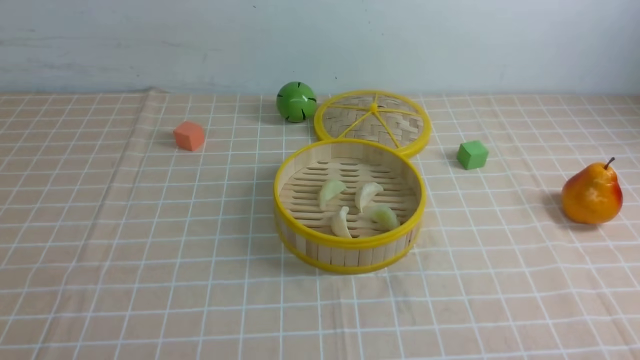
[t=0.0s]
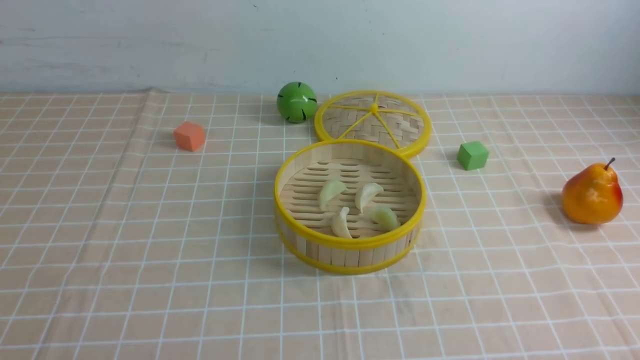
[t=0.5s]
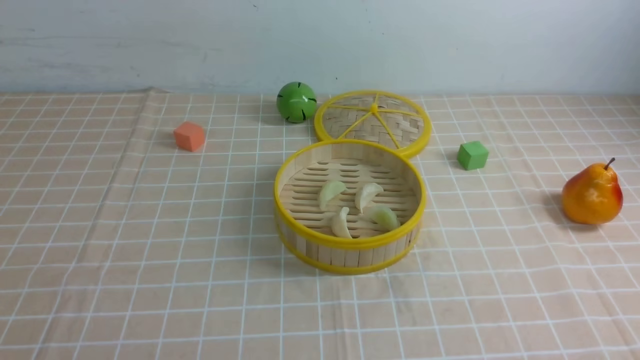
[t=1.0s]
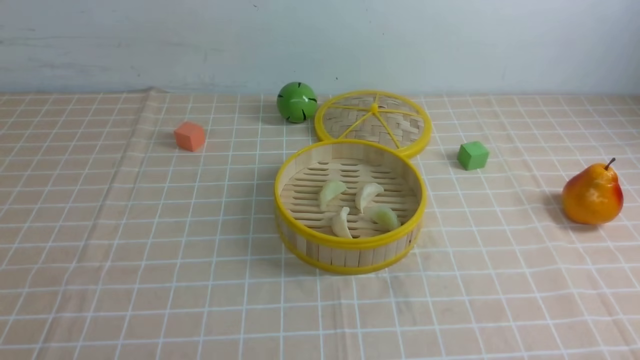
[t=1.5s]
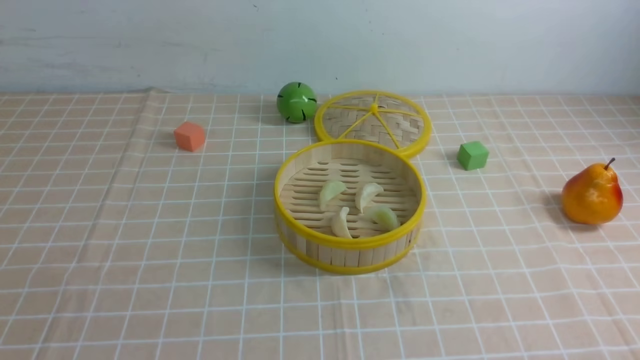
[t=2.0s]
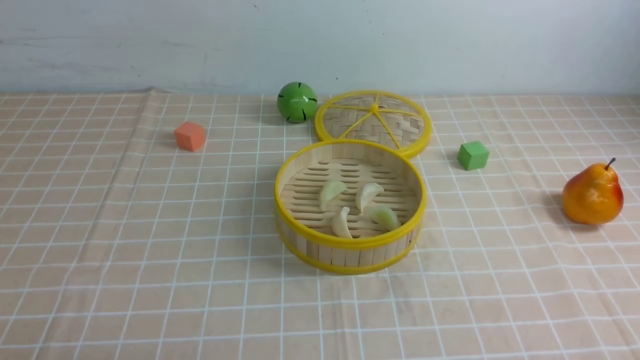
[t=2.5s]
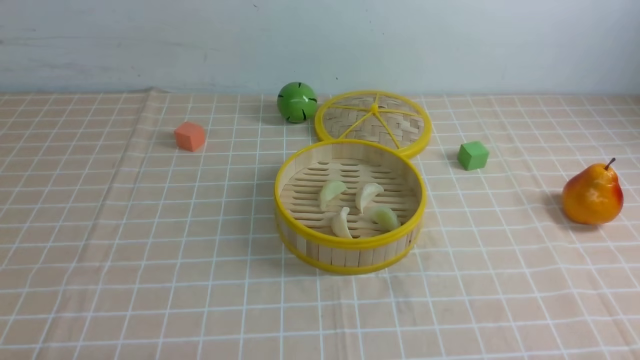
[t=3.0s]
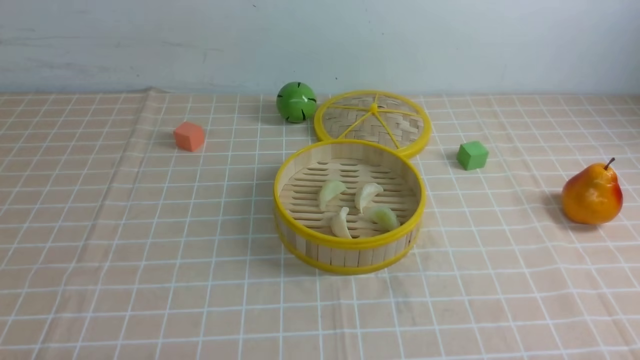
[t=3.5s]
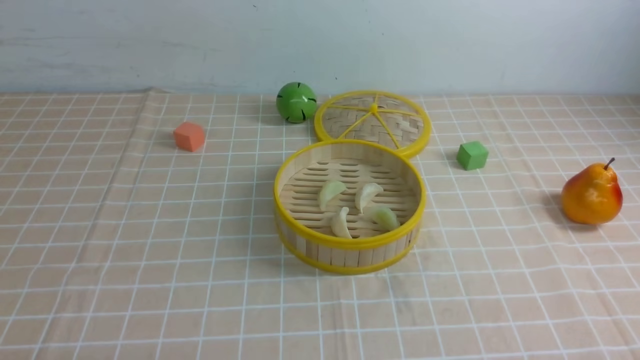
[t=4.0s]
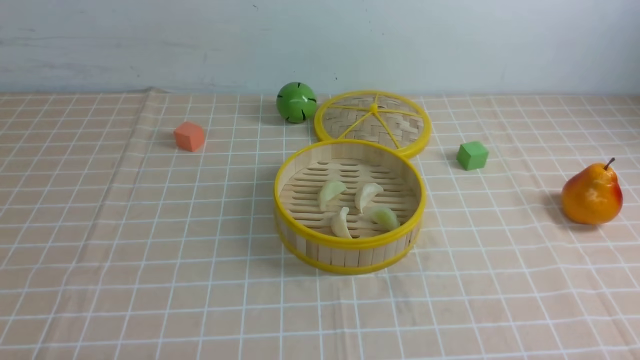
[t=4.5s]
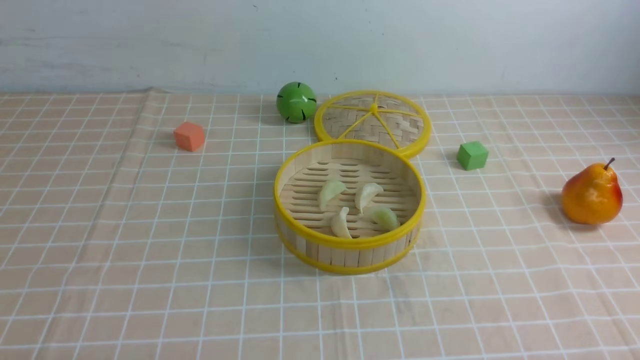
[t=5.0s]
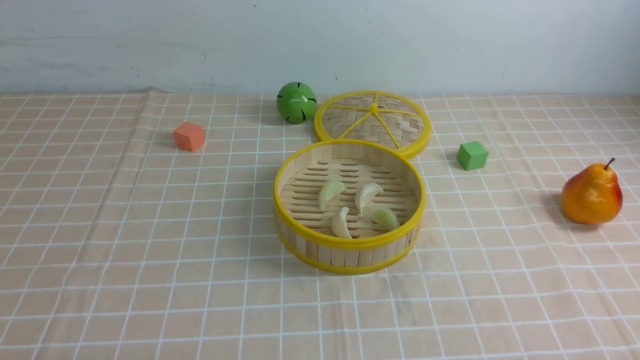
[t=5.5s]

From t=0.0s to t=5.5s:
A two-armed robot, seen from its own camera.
Task of the whole recording: put the dumplings into the steamer on the table with the brown tablecloth.
From t=3.5s to t=5.5s: The two grippers keep their place.

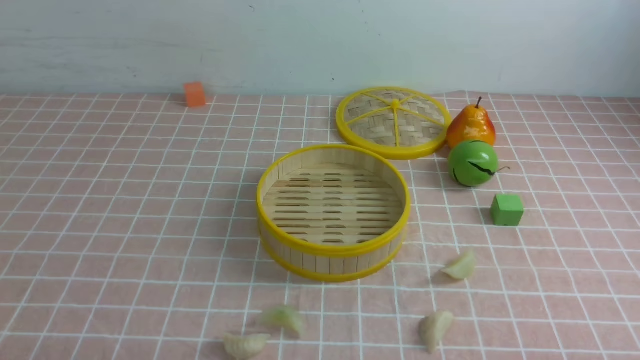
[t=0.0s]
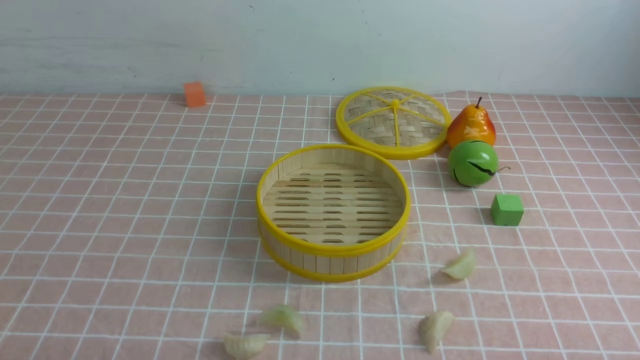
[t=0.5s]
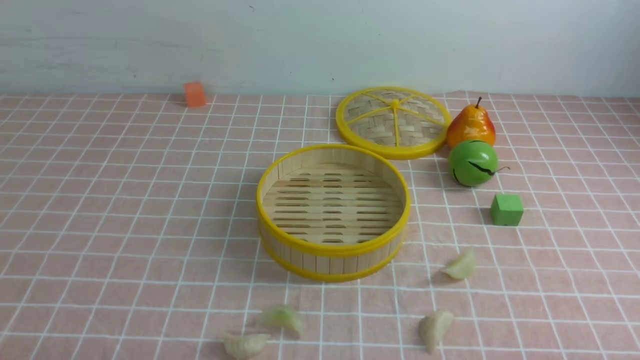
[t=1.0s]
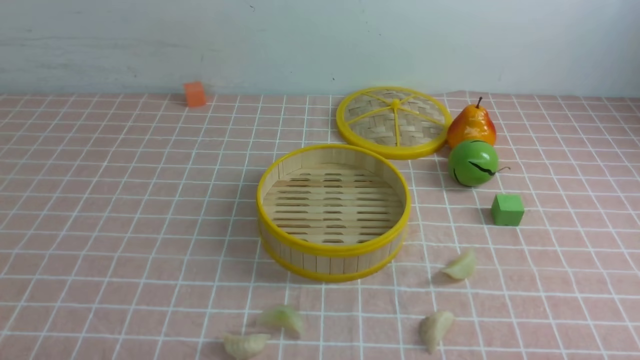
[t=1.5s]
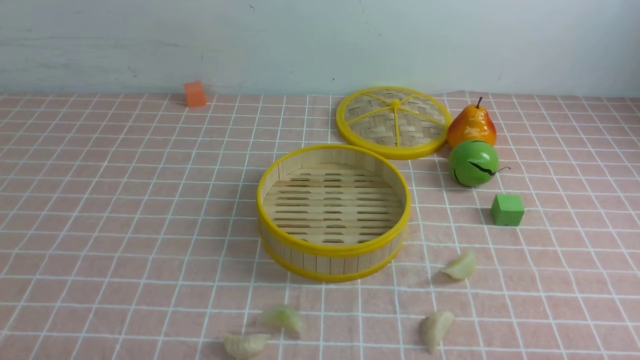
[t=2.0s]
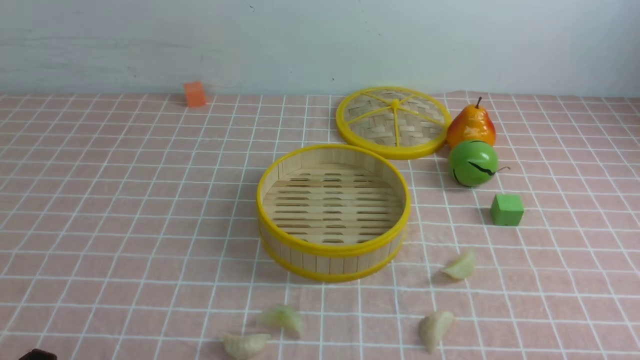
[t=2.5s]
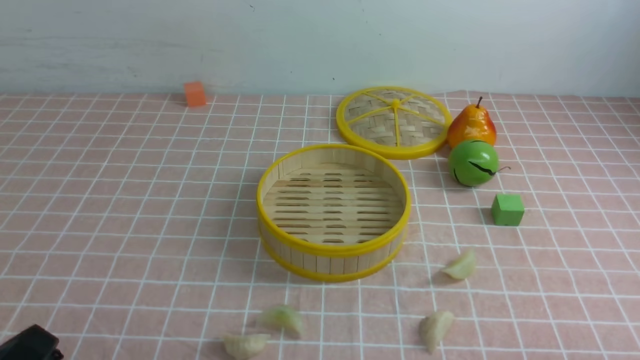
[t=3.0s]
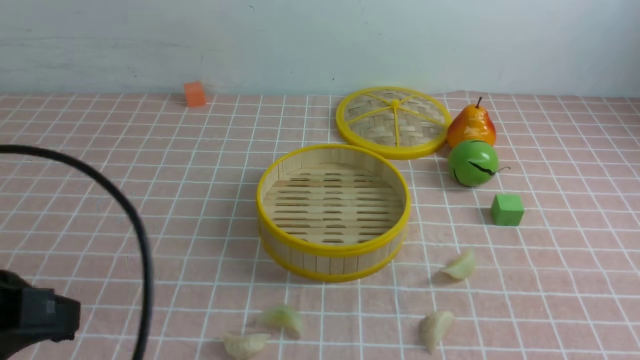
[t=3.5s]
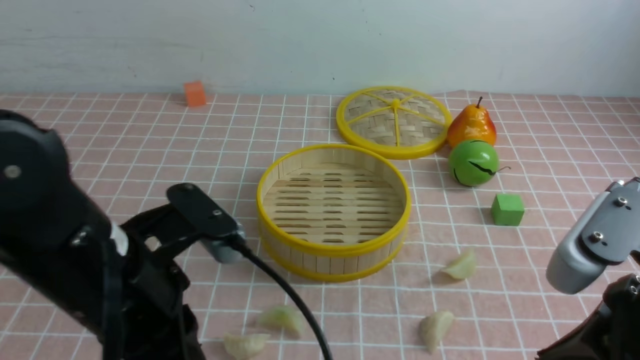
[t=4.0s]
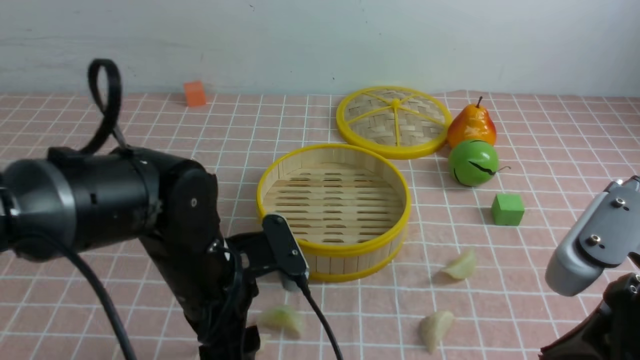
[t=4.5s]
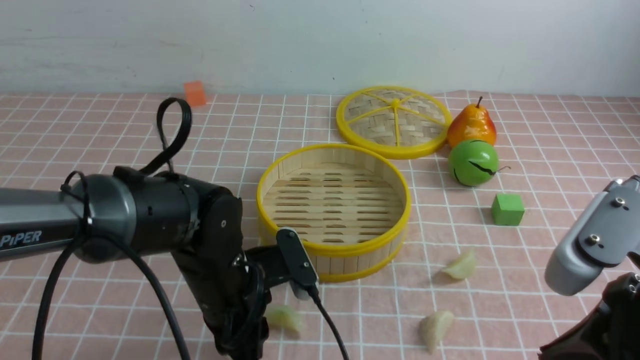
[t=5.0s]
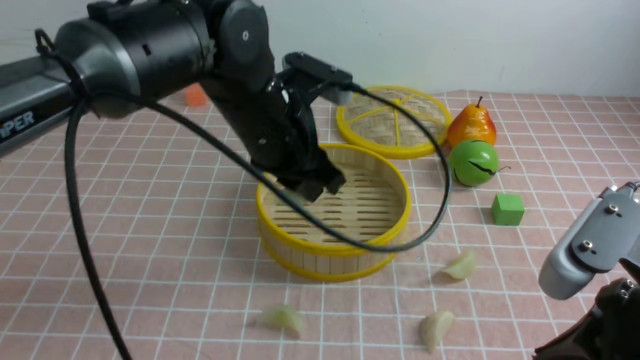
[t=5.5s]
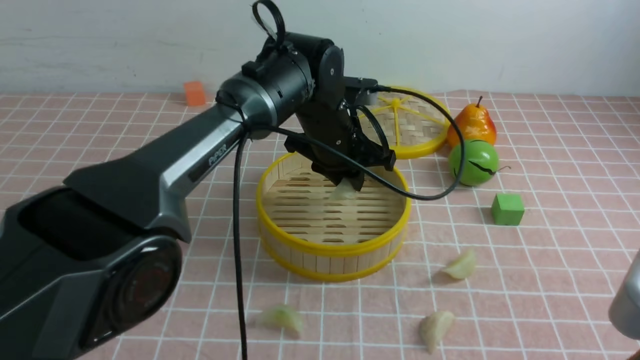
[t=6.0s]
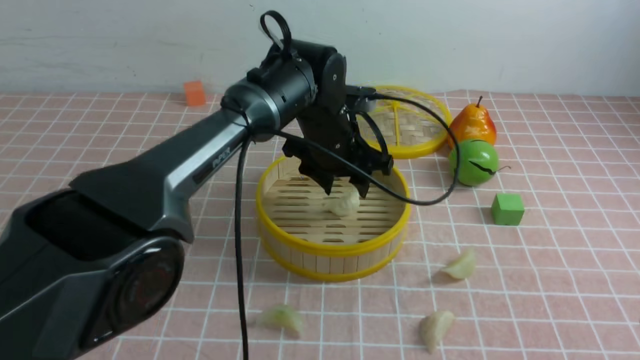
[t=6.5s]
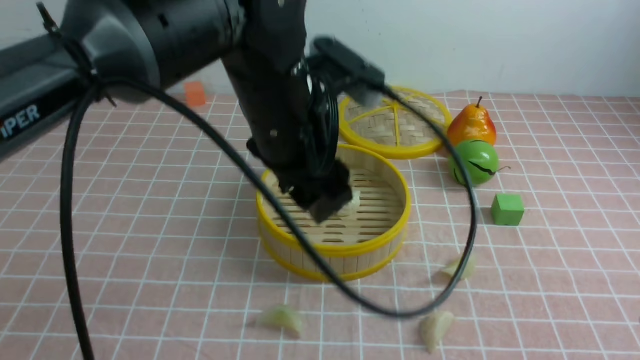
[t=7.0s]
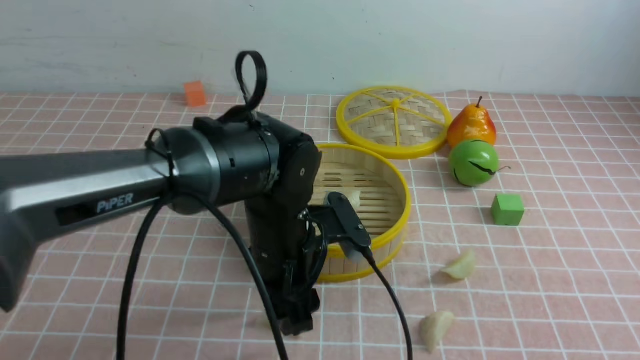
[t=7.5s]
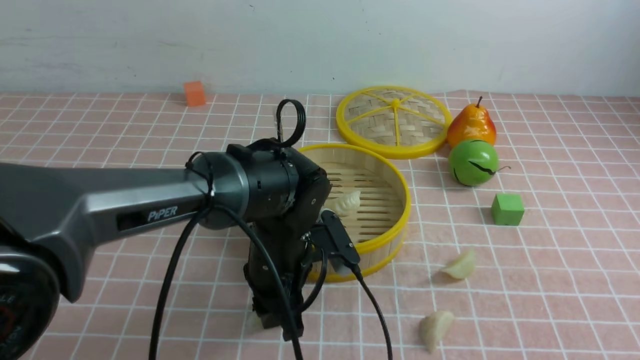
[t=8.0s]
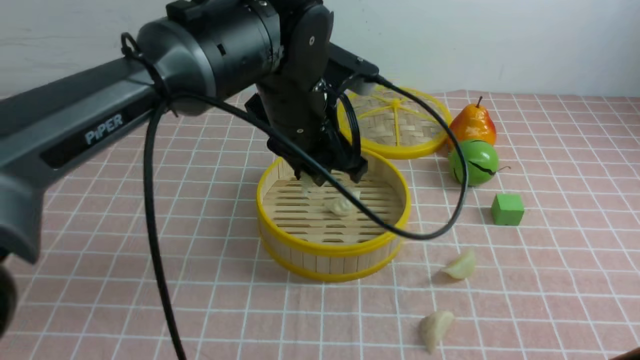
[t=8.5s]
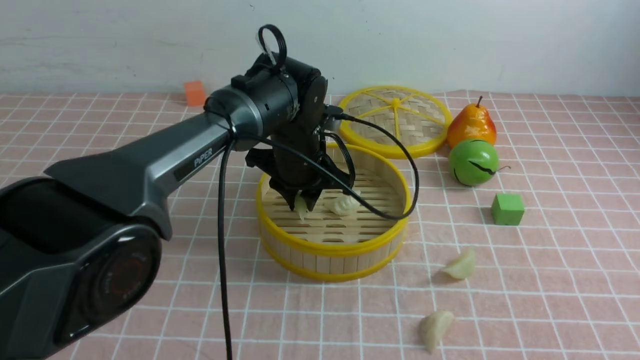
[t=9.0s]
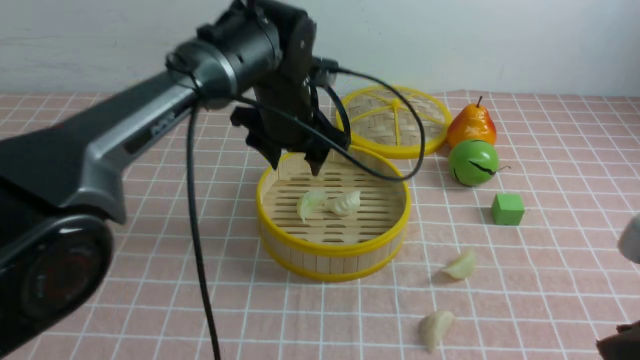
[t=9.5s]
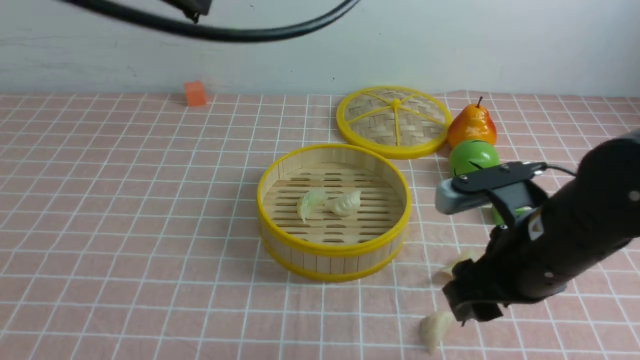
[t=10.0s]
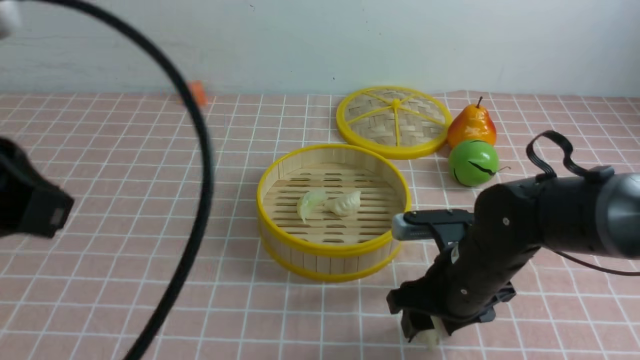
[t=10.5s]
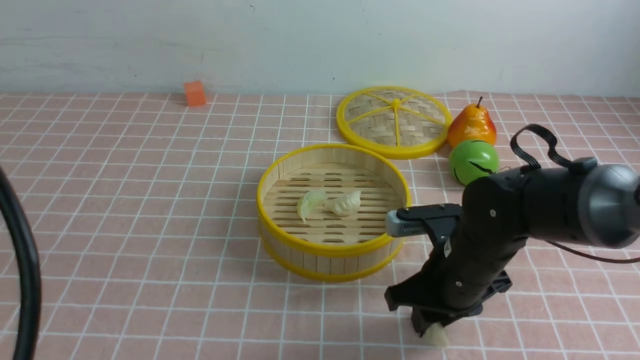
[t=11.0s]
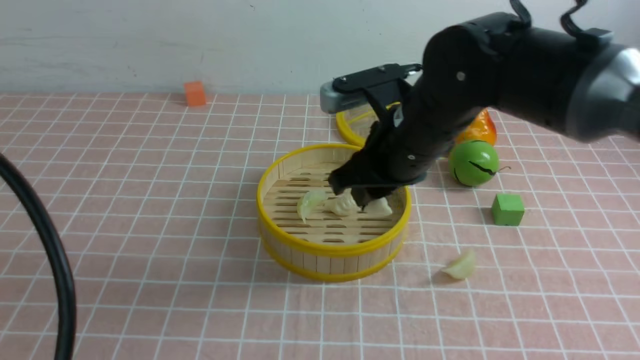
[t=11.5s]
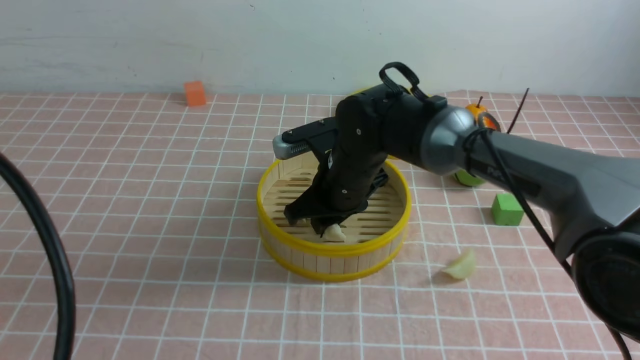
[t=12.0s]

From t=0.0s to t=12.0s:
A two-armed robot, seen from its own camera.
Task of the whole recording: put the dumplings into the steamer on the table with the pink tablecloth.
Step, from t=0.0s to t=5.0s: use the left arm to grab a dumpling.
Step, from t=5.5s to t=6.5s: use the left arm to put the dumpling into the steamer.
Step, from t=7.0s to t=8.0s: use the left arm to grab a dumpling.
Step, from t=8.5s to t=9.0s: use the left arm to put the dumpling into the steamer.
Step, from t=9.5s to t=11.0s: use the right arm to grab a dumpling.
From t=2.0s to t=4.0s: The left gripper moves forward, upward and to the right, roughly 20 cm, and closes up. Meanwhile the right gripper travels upward, to the left and forward by about 20 cm, and closes up.
From t=4.0s to t=6.0s: The left gripper is displaced forward and to the right by some 30 cm, and opens, then closes once more.
From t=6.0s to t=8.0s: The left gripper shifts some 15 cm backward and downward, and opens, then closes again.
From t=8.0s to t=10.0s: The left gripper moves up and down over approximately 30 cm, changing direction 2 times. The right gripper is displaced forward and downward by roughly 15 cm, and opens its fingers.
From t=10.0s to t=12.0s: The right gripper shifts roughly 25 cm forward and to the left, and closes; the left gripper heads backward and to the left, covering some 25 cm.

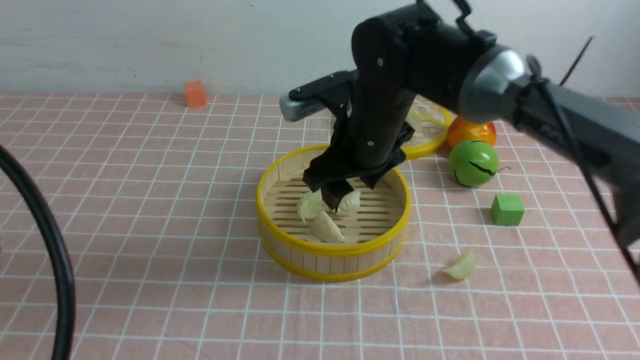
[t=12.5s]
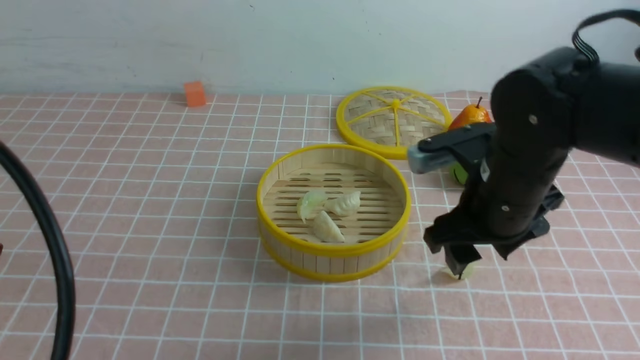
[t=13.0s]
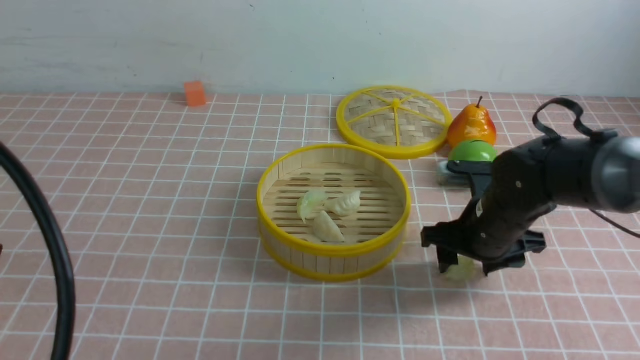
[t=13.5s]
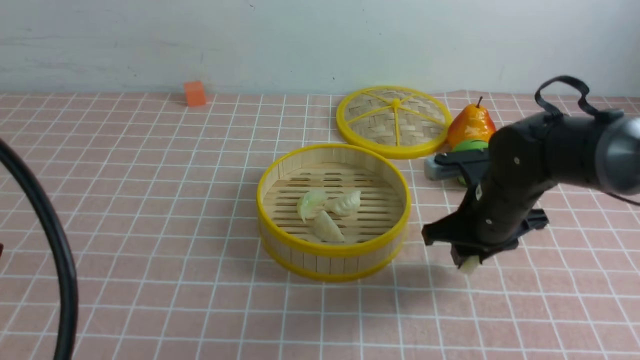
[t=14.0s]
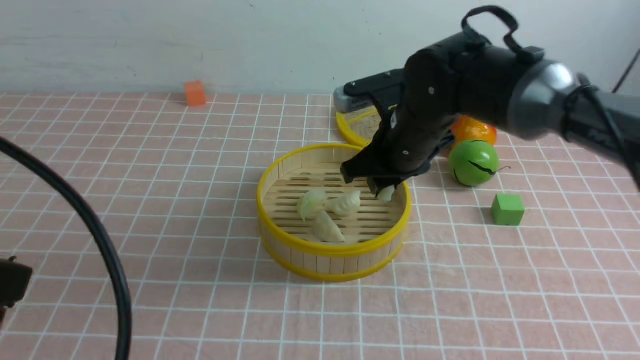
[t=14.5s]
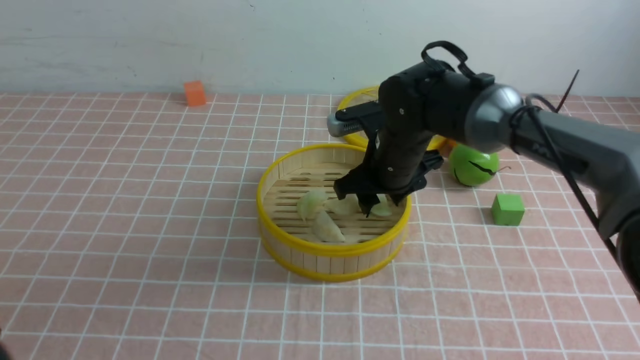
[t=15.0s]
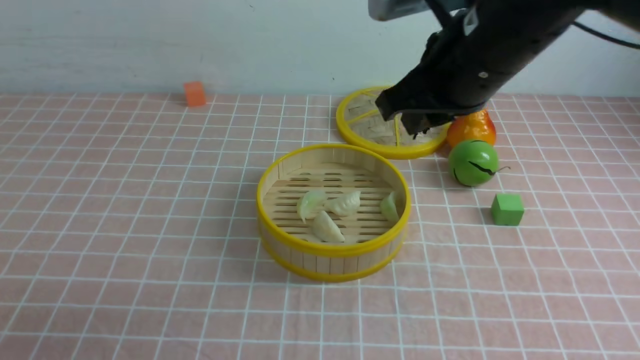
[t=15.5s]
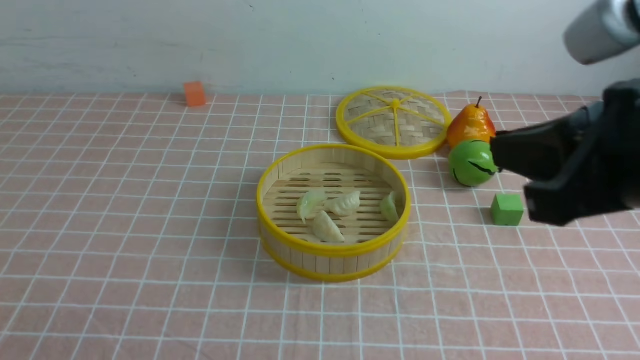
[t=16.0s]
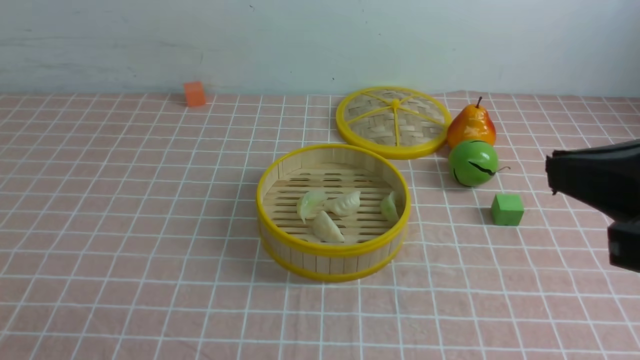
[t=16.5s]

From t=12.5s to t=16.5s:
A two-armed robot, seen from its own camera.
Task of the whole recording: put the dumplings into the steamer on the table with the pink tablecloth.
Step, from t=13.0s to t=14.0s: use the right arm to grab a dumpling.
Step, from t=14.5s to t=15.0s: use the right arm to put the dumpling into the steamer.
From t=12.5s to t=14.5s: The right gripper heads to the right, covering roughly 5 cm, and closes up.
From t=14.5s to t=16.5s: The right gripper moves backward, upward and to the right, approximately 30 cm, and closes up. The left gripper is displaced downward and backward by about 15 cm.
